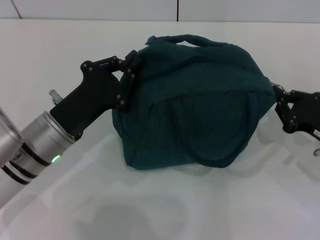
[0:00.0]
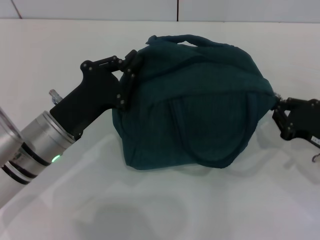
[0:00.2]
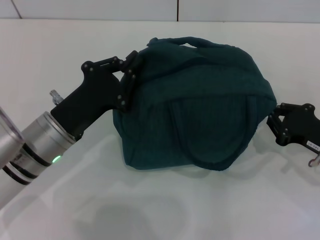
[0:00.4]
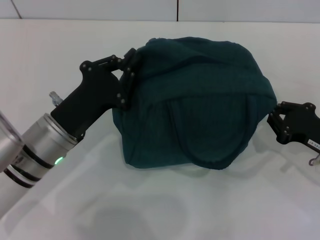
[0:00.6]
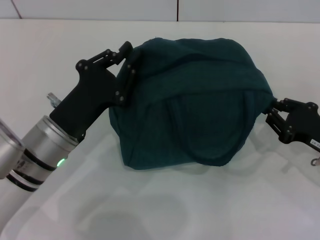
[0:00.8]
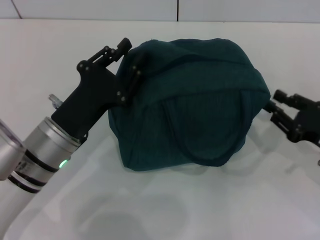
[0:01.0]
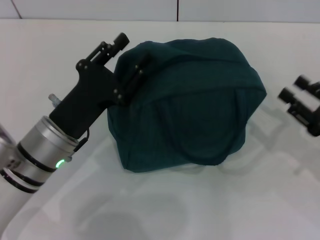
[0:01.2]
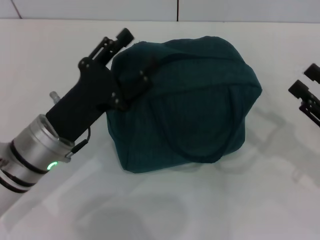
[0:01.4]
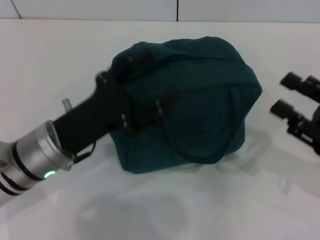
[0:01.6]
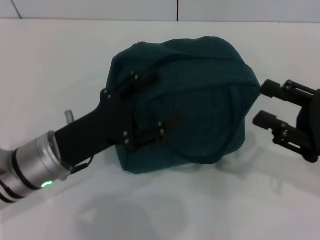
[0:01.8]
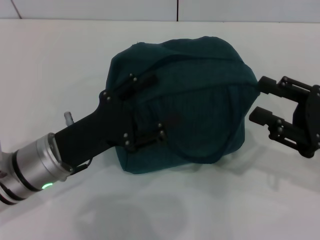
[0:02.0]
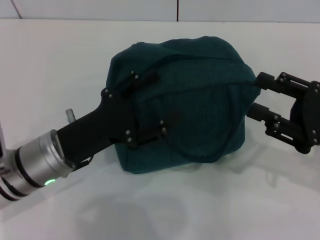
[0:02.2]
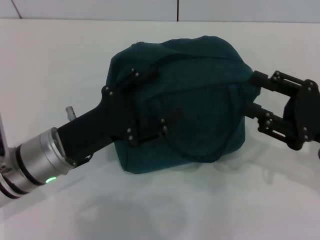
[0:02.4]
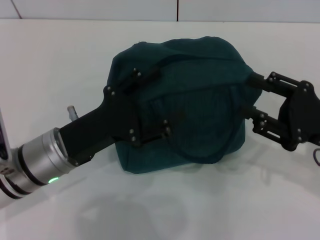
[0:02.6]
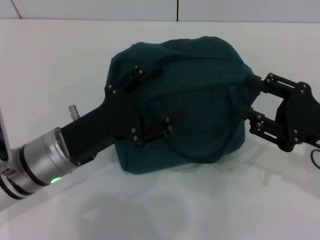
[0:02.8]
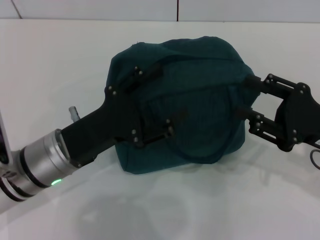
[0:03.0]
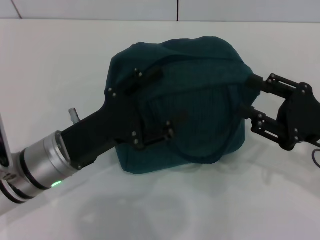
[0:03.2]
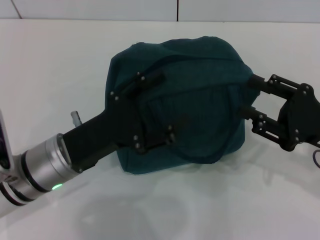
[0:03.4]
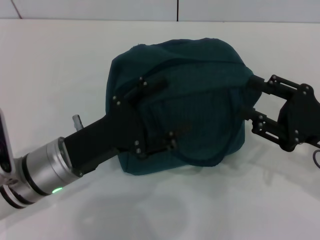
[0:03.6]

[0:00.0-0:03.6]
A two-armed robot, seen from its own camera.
Step, 0:01.0 to 0:01.2: Hold the lunch bag with your left hand.
0:00.0 to 0:01.8: The right gripper travels upward by approximately 5 cm, and opens its fingers. The left gripper opens.
0:01.8 to 0:03.6: The grippers stay close to where they were, moving slightly.

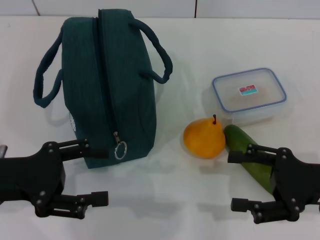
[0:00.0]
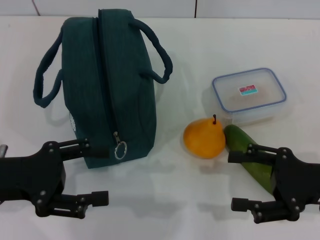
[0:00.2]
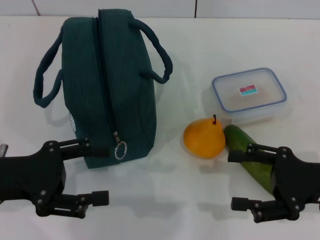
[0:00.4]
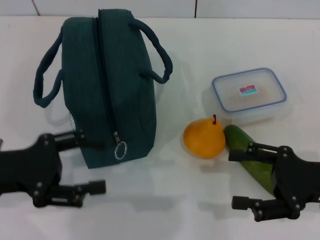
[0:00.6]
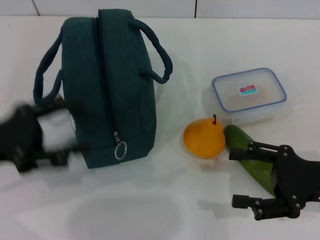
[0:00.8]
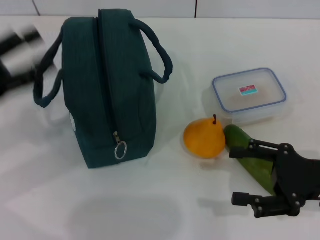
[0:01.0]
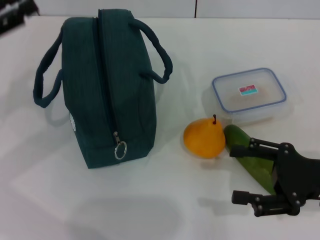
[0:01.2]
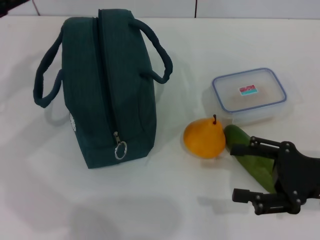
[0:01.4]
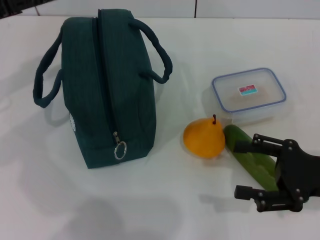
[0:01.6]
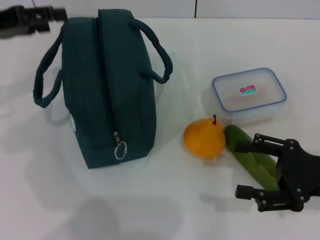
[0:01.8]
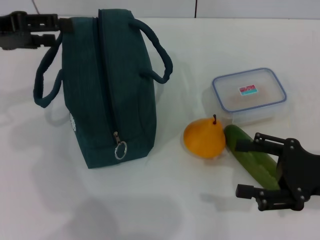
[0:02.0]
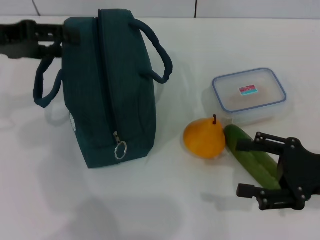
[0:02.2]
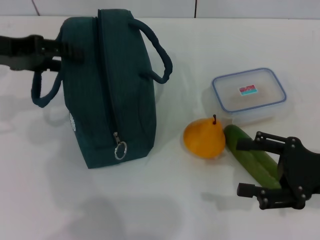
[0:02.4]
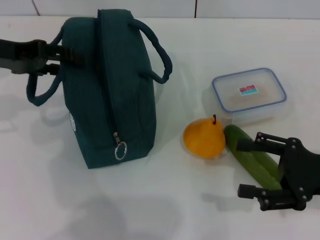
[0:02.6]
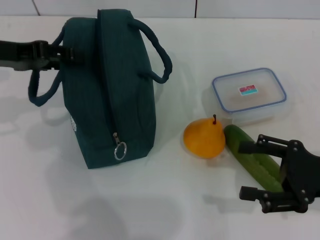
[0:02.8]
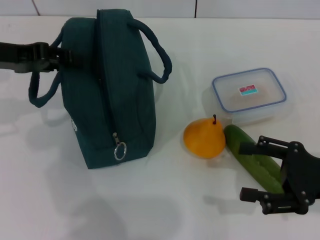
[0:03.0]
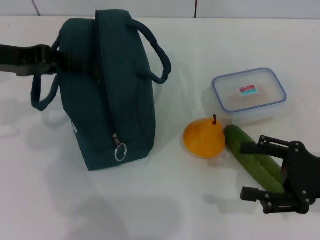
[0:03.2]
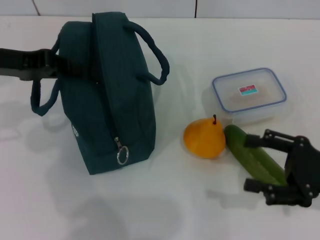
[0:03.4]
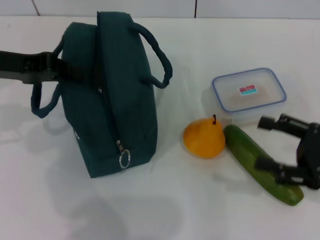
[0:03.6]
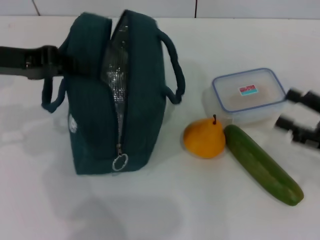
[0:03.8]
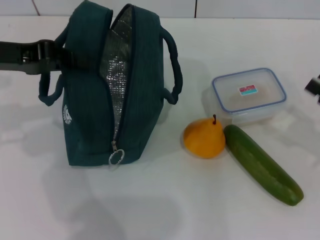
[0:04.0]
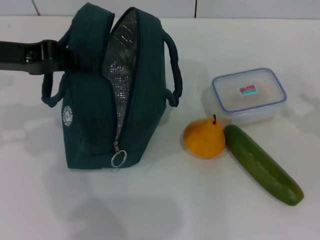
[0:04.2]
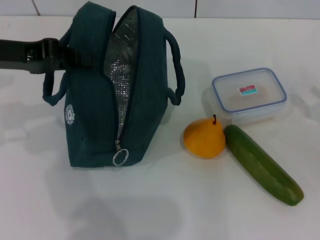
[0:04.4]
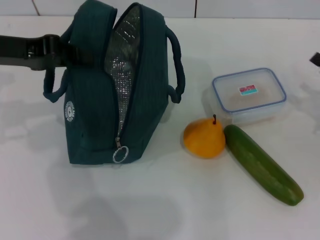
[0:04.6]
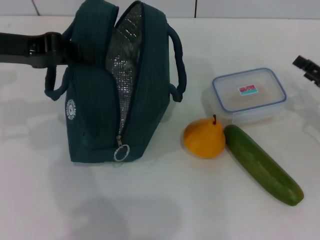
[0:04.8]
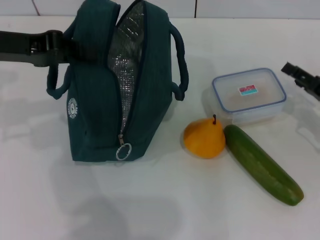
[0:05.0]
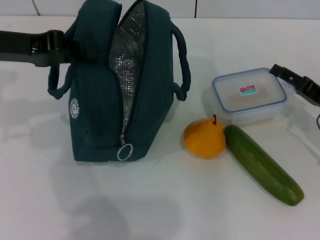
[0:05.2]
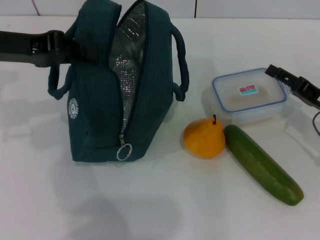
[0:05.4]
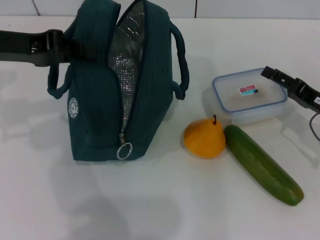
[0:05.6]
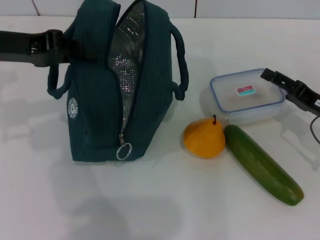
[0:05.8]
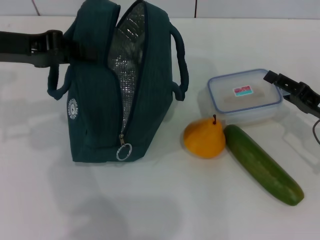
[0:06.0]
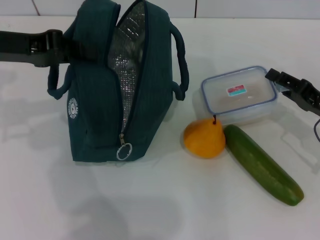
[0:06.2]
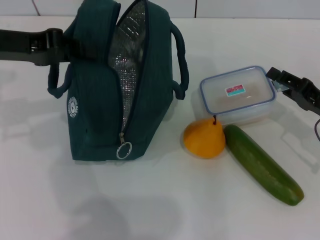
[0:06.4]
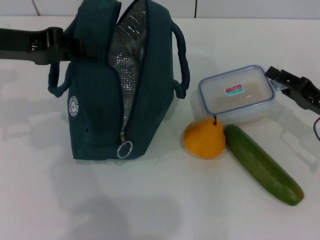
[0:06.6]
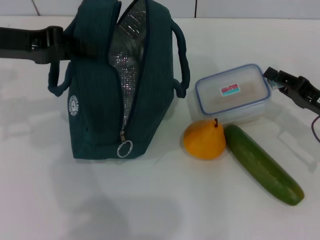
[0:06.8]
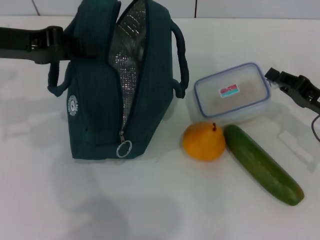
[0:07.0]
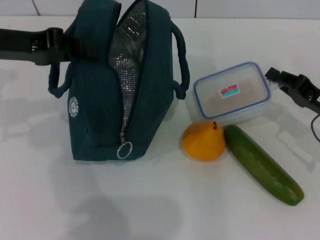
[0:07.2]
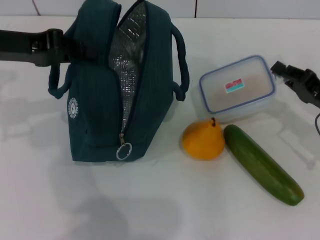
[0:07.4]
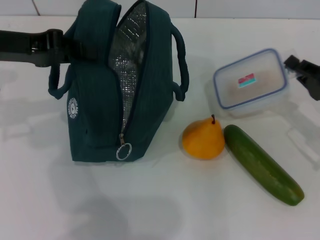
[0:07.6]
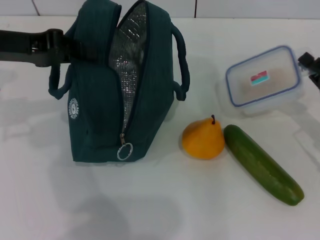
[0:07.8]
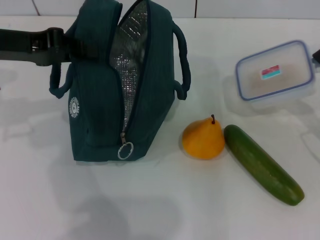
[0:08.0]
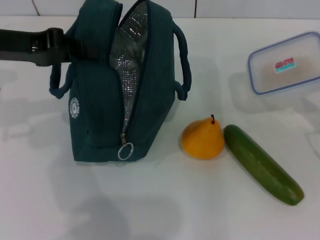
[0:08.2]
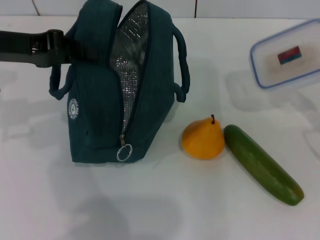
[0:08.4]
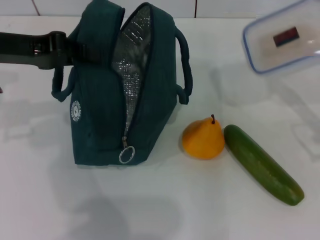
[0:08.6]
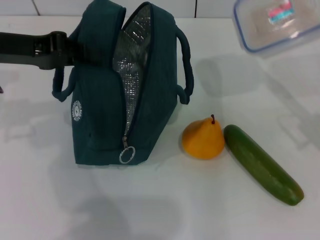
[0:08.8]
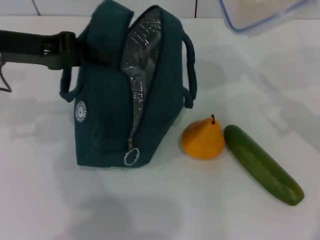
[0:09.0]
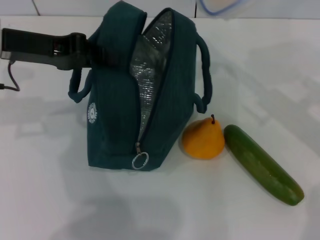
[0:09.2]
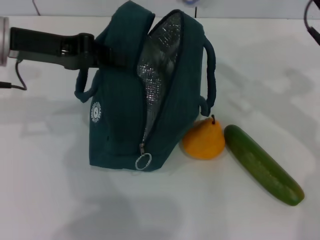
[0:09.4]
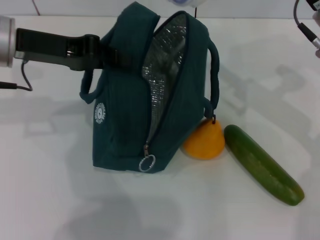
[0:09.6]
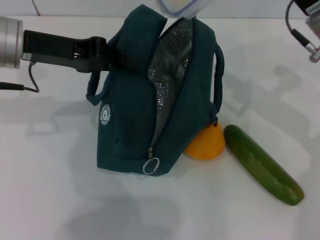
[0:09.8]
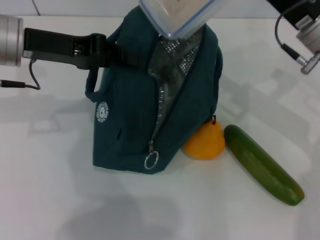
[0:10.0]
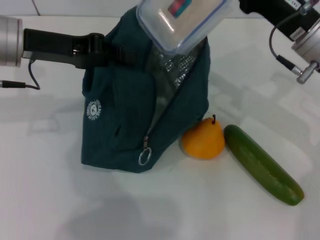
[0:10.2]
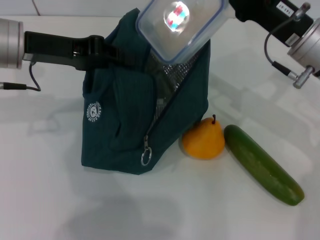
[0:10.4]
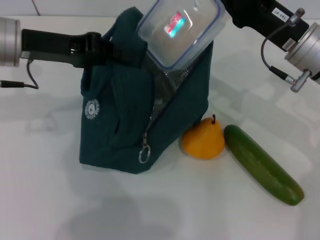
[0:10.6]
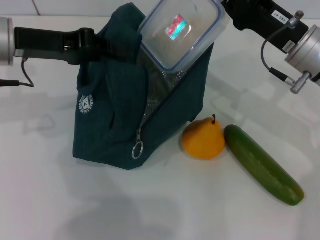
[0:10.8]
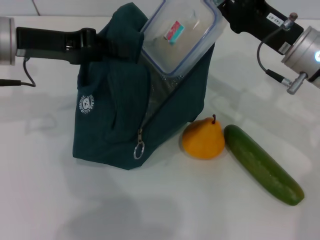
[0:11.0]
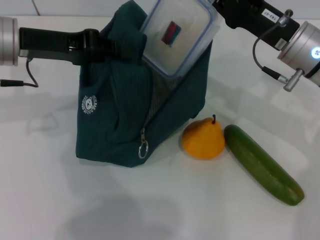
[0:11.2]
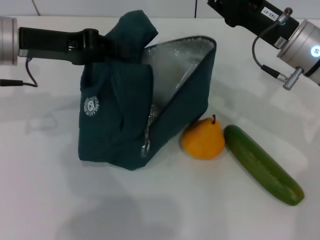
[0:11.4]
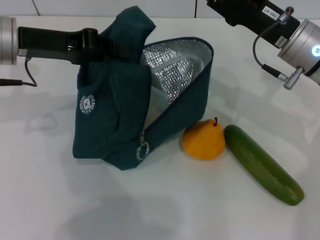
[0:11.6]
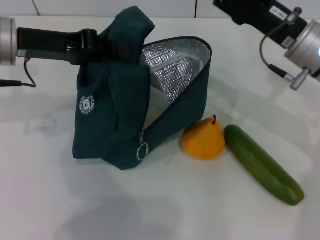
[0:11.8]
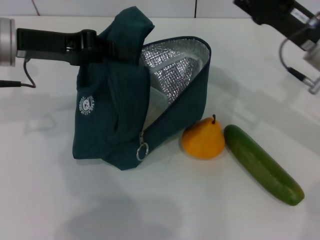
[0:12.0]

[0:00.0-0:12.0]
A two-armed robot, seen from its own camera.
Step, 0:00.0 to 0:04.2: Hold the lunch bag with your left hand.
Step, 0:04.4 to 0:07.0: Pick up the lunch box with your right hand.
Step, 0:07.4 to 0:11.8: Place the lunch box into the lunch bag with your right hand.
0:00.0 to 0:01.6: The left gripper goes roughly 15 cm forward and upward.
0:03.0 to 0:04.4: The right gripper is displaced to the right and forward by roughly 10 cm; the left gripper closes up.
0:04.4 to 0:06.0: The right gripper heads to the left, covering about 5 cm.
0:06.0 to 0:07.6: The right gripper closes.
0:07.6 to 0:09.0: The right gripper heads upward, covering some 10 cm.
0:09.0 to 0:10.4: The right gripper shifts some 10 cm to the left.
0:10.4 to 0:12.0: The right gripper opens up.

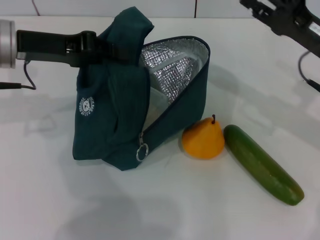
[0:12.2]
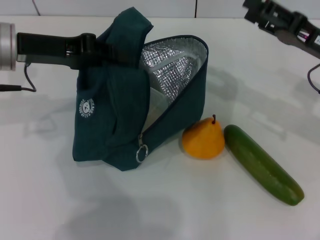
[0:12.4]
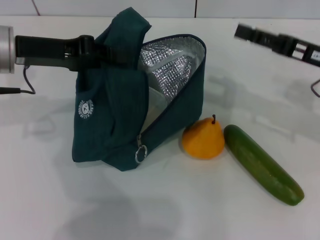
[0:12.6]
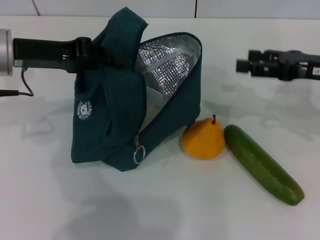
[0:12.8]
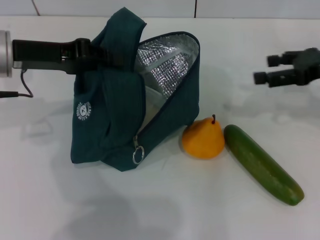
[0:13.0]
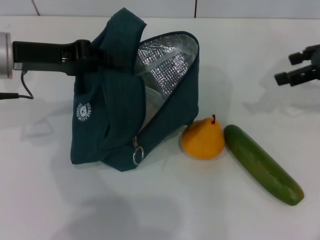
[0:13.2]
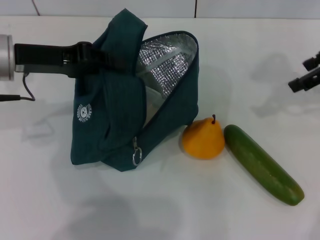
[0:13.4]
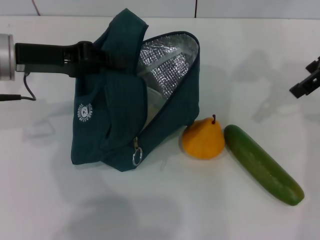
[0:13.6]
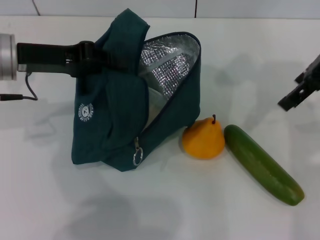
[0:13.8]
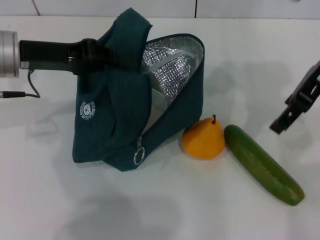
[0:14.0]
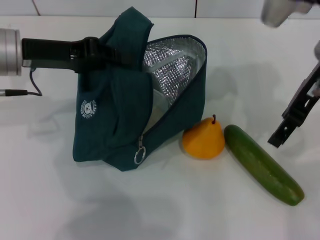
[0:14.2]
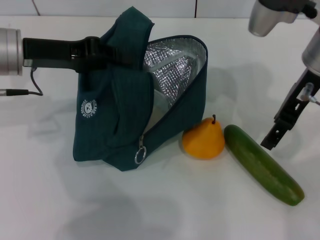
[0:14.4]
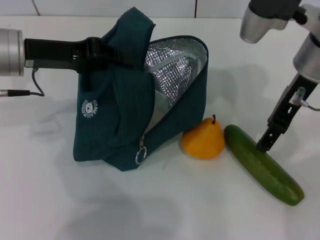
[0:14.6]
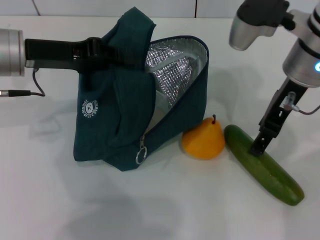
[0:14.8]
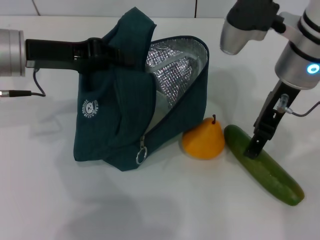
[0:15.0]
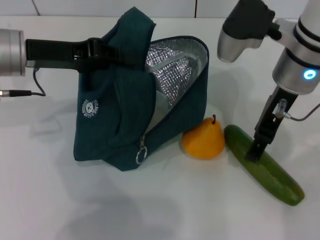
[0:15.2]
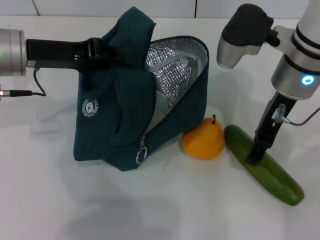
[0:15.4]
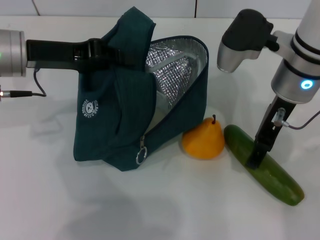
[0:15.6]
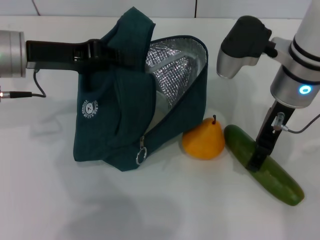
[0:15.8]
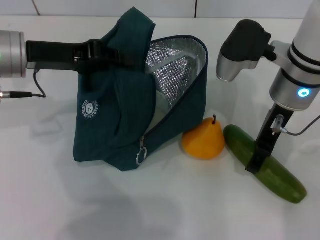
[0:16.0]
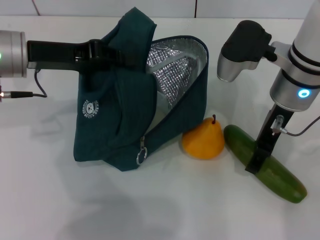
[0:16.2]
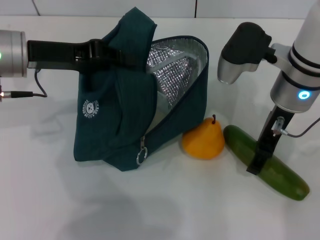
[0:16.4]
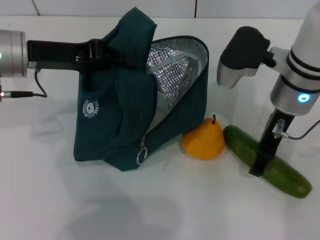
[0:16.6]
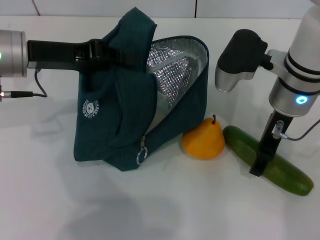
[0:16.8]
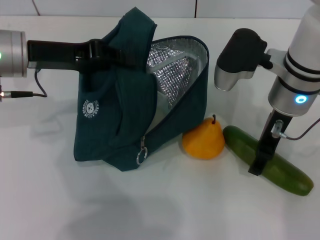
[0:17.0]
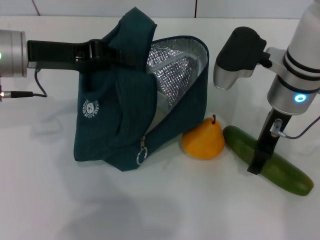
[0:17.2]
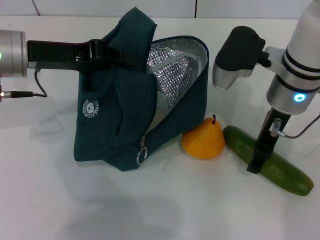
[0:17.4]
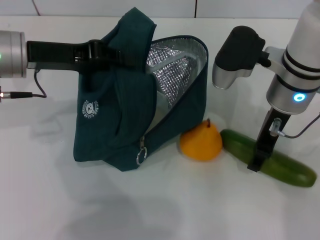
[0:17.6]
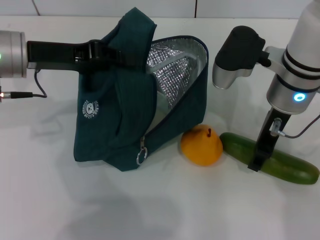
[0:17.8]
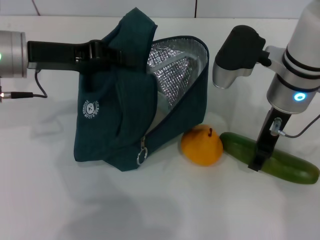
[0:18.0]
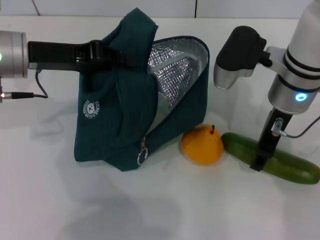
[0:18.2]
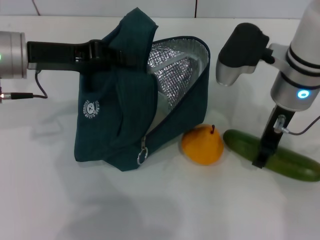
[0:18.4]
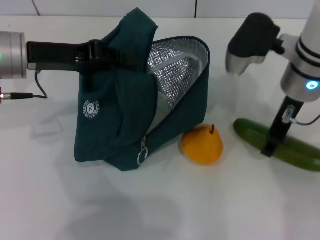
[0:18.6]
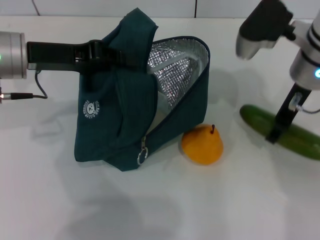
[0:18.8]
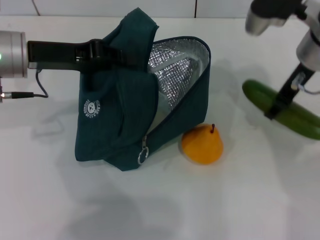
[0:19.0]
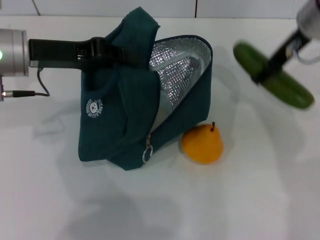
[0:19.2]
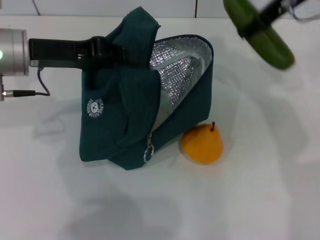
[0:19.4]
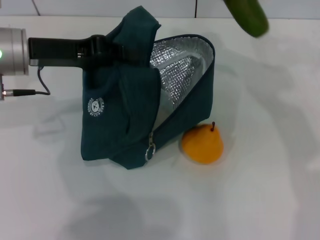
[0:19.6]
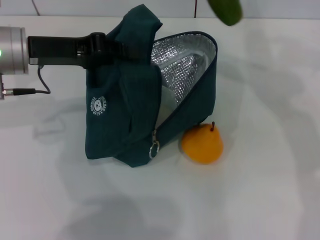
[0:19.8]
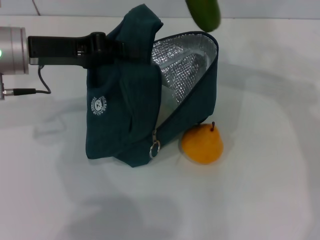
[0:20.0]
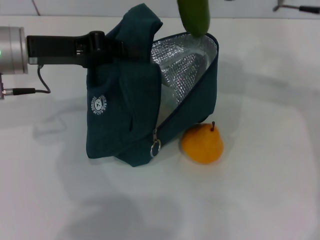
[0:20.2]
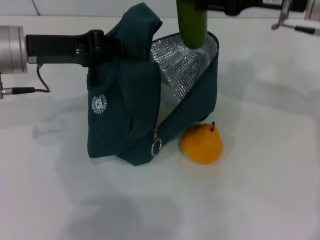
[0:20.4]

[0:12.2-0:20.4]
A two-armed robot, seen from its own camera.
Step, 0:12.2 to 0:18.0: Pick up the cucumber with your right hand.
0:12.2 to 0:13.8: The right gripper is displaced upward by roughly 15 cm.
0:13.8 to 0:15.4: The right gripper shifts roughly 10 cm to the left and downward.
0:15.4 to 0:18.8: The grippers stay close to where they were, moving slightly.
